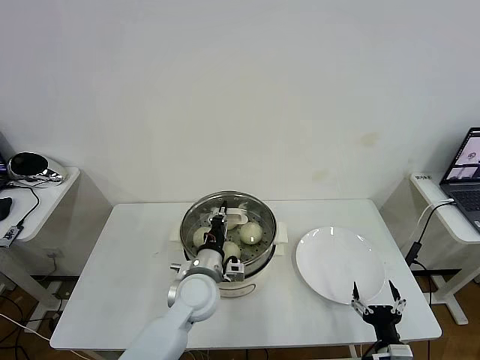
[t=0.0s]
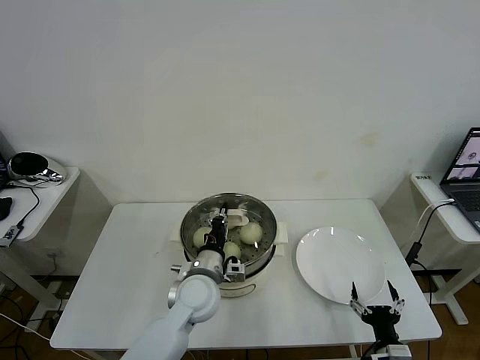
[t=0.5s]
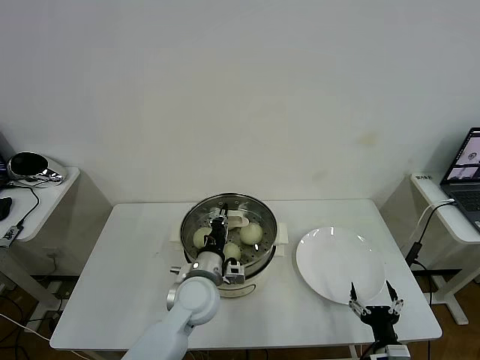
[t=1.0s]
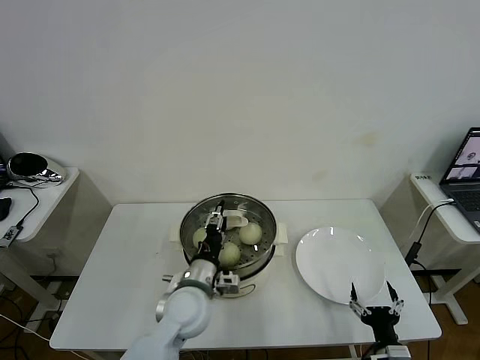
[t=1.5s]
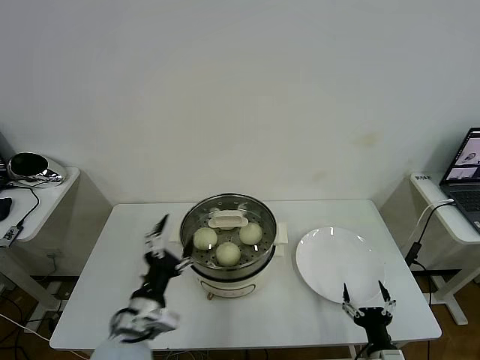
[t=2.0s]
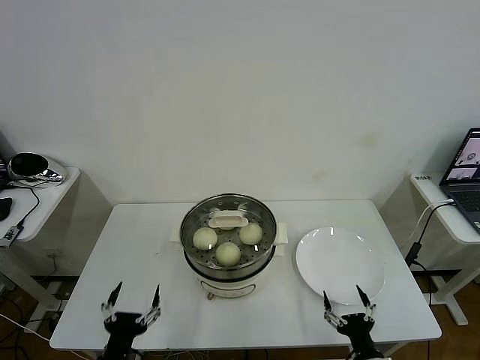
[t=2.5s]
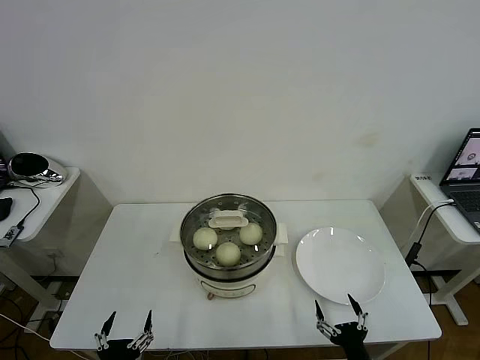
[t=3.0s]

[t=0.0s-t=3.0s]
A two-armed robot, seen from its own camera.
Task of the whole recording: take steamed baozi put them in steamer then cover it.
t=0.0s to t=1.5s: The left gripper opens up.
t=1.5s to t=3.0s: The left gripper goes about 30 cm backward and to the left, and opens, while the right gripper changes place by about 5 cm.
